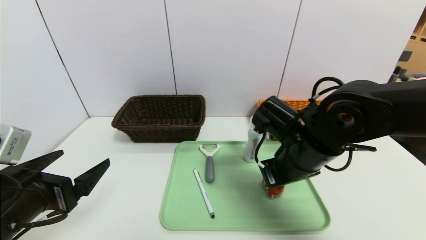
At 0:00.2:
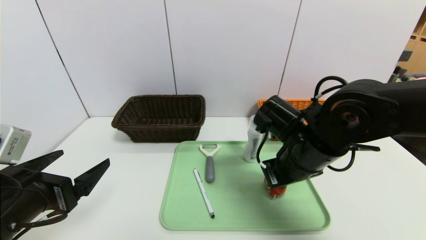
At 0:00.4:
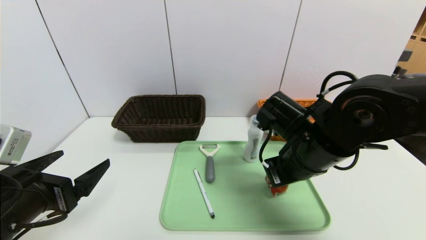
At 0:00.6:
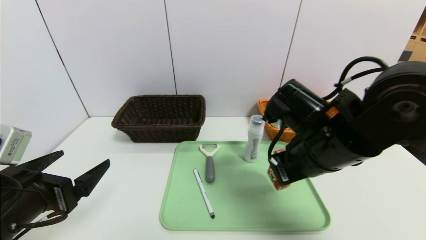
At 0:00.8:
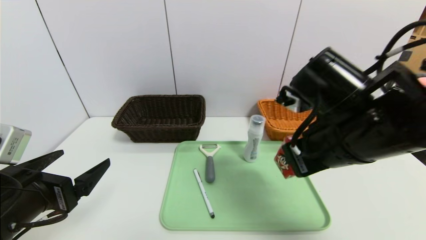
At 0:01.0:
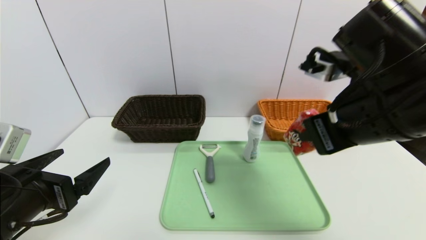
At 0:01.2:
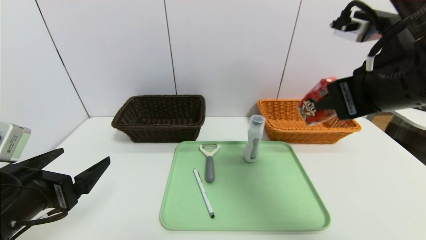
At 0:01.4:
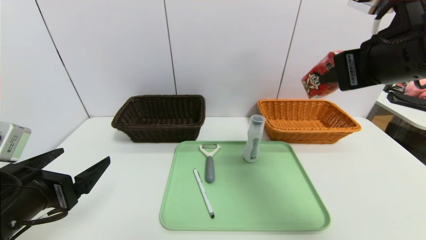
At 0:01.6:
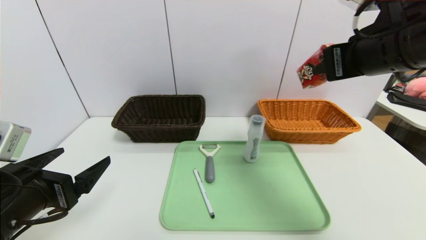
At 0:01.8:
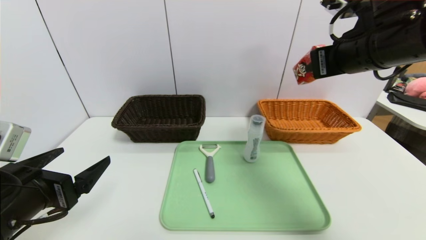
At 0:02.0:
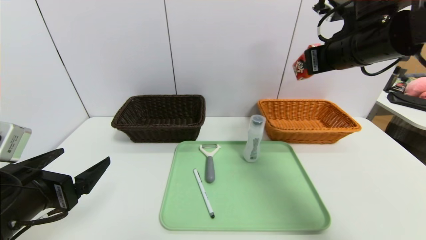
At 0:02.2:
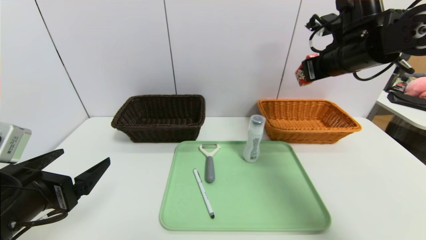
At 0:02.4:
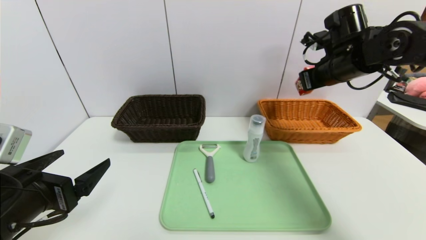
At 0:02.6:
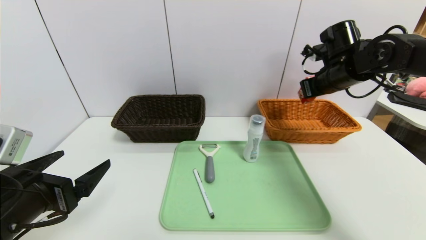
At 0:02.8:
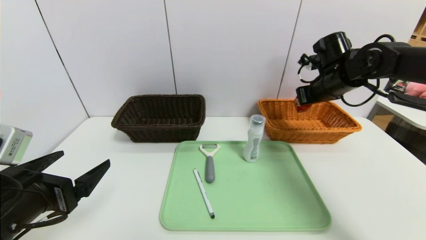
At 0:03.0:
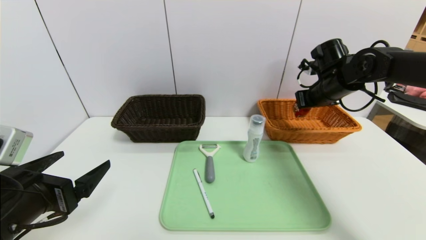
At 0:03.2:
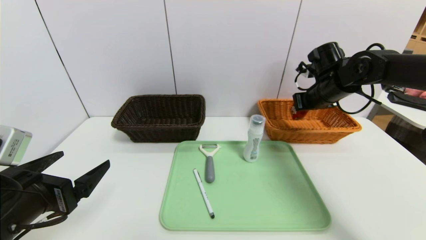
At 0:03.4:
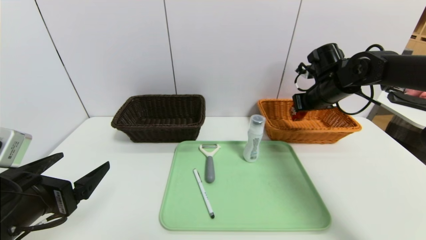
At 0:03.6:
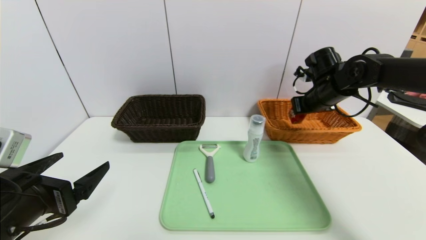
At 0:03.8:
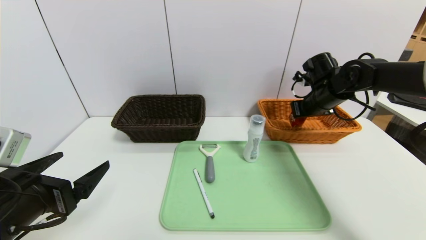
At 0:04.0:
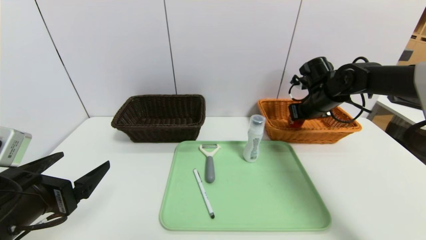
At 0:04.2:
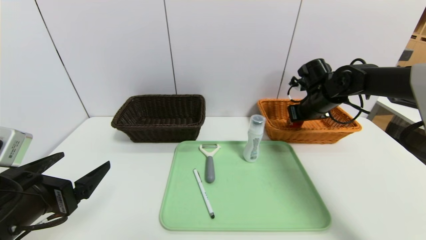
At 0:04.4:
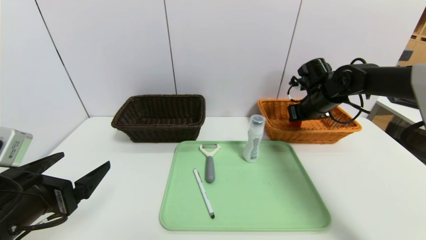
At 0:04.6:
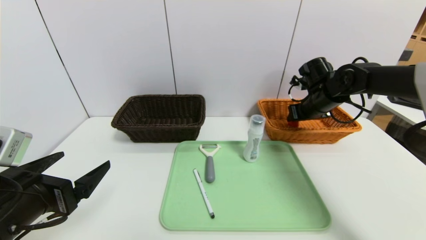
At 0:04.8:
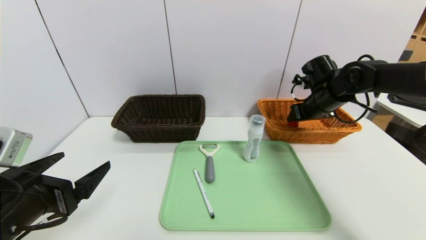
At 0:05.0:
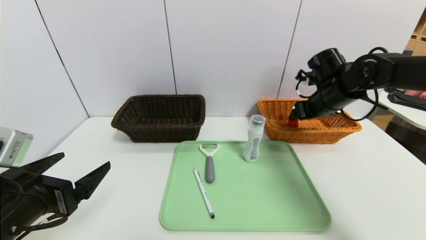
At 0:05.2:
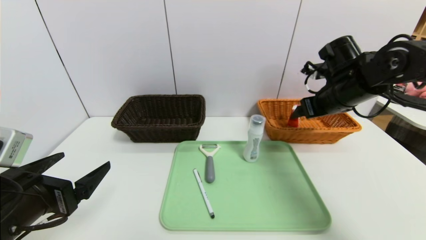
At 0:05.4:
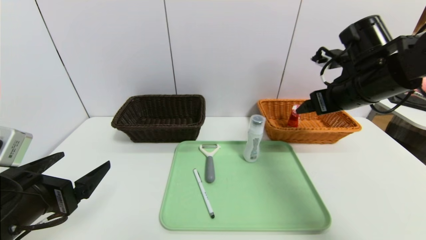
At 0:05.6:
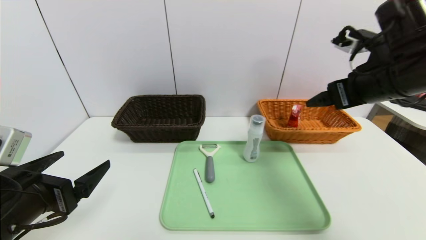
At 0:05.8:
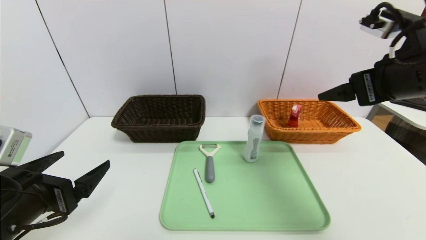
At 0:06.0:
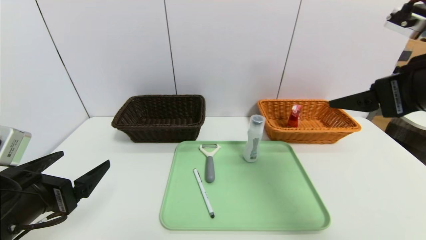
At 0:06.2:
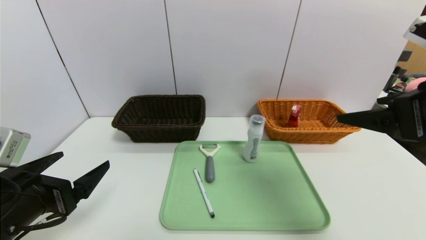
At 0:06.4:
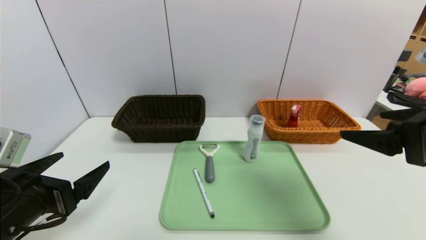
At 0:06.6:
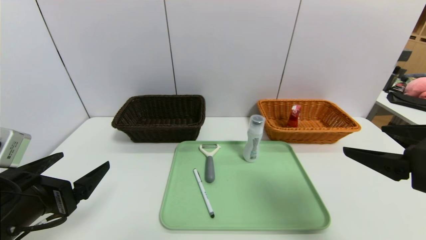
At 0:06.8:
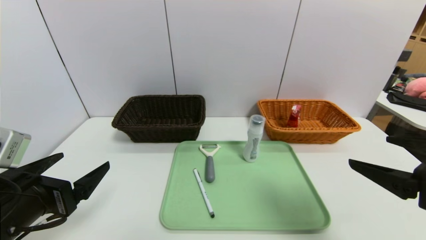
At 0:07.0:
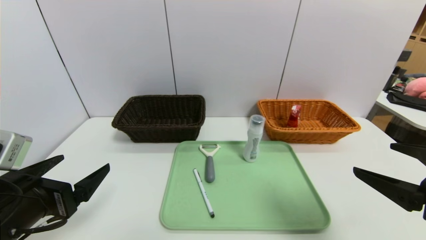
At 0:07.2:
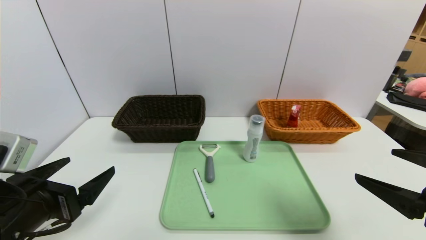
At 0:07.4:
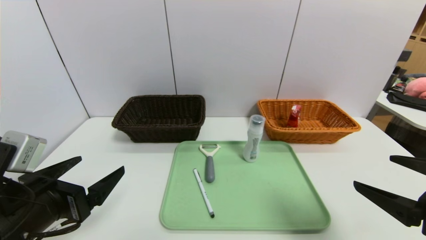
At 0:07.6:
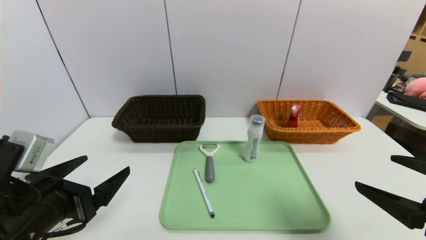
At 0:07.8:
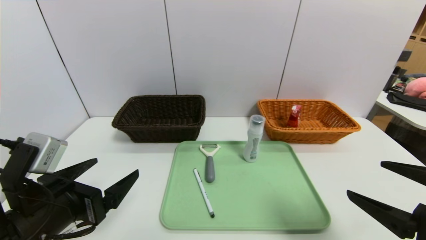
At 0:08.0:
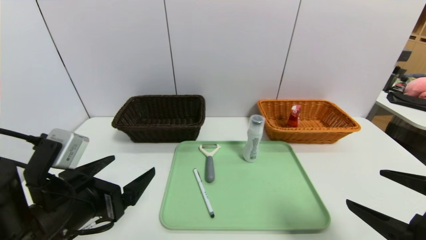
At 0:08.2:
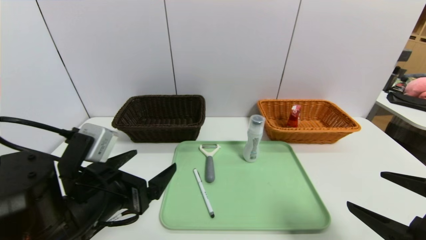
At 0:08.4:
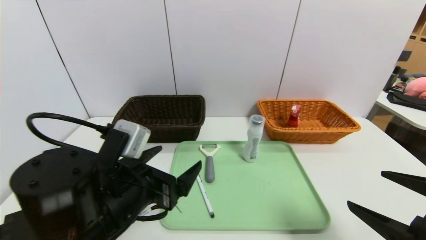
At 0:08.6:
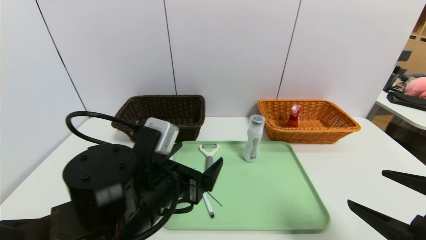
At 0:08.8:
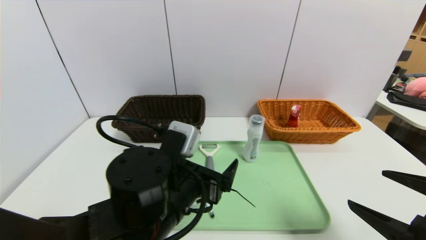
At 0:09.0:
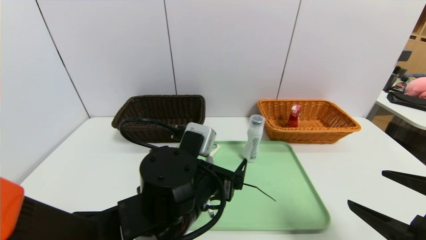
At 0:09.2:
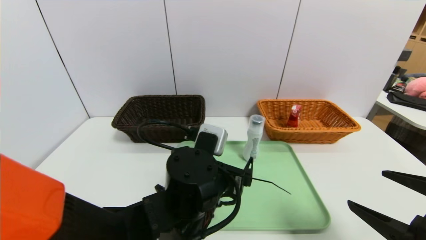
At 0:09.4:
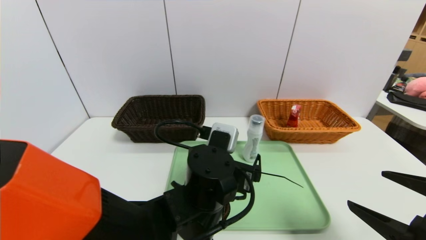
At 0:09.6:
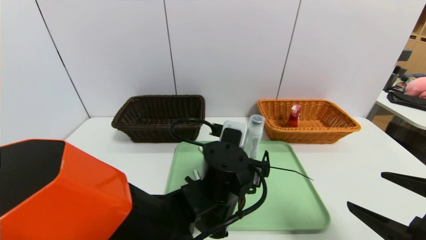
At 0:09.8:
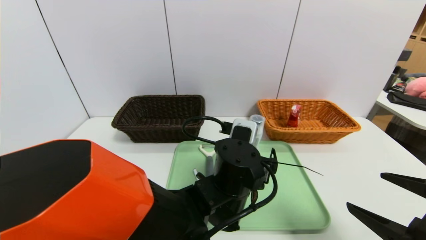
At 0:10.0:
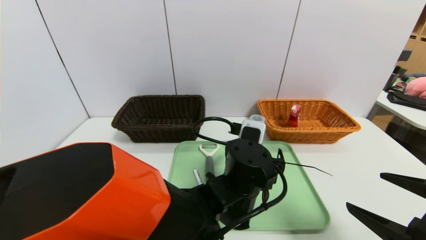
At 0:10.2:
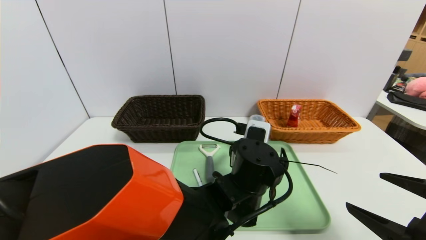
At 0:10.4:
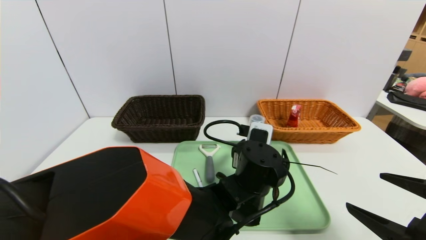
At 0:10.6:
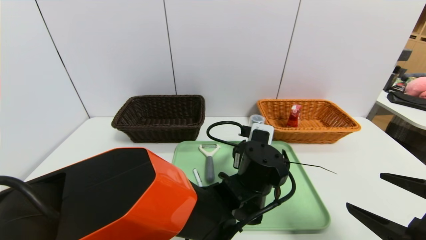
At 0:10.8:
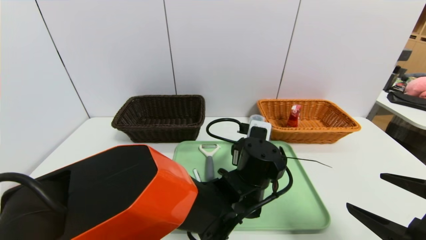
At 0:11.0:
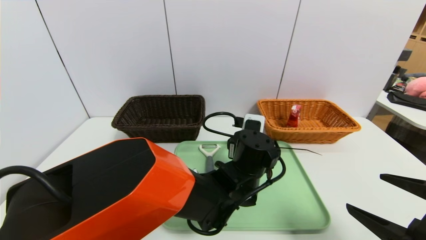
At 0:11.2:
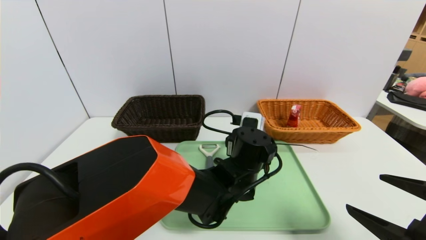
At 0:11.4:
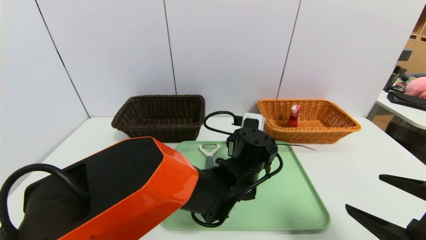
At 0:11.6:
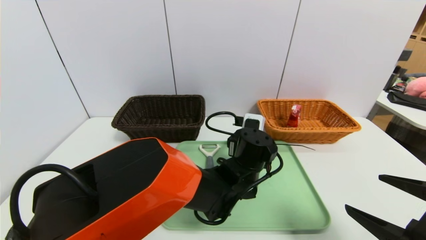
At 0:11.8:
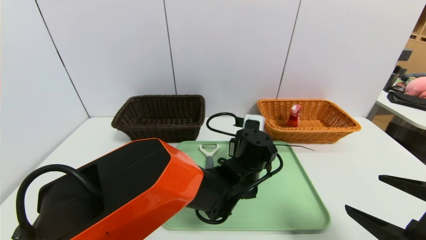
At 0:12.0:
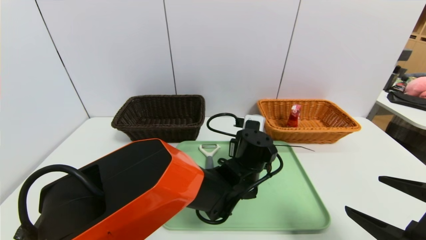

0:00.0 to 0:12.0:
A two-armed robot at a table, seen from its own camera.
Task of the whole recording: place the food in the right basket with the right gripper, and place the non food items in the left basket with the left gripper.
Step, 0:00.0 to 0:05.8: Grasp the ad milk and put it in the right basket.
0:00.0 to 0:01.6: The right gripper shifts about 20 cm upward and to the right.
0:01.6 to 0:03.0: The right gripper moves forward and downward, about 20 cm.
0:03.0 to 0:04.4: There are only small adjustments of the grippers.
0:04.4 to 0:06.0: The right gripper moves backward and upward, some 30 cm, and opens its fingers.
0:06.0 to 0:07.6: The right gripper moves downward and backward, approximately 15 cm.
0:07.6 to 0:09.0: The left gripper heads to the right, covering about 20 cm.
0:09.0 to 0:10.4: The left gripper is displaced to the right and forward by roughly 15 cm.
0:10.4 to 0:12.0: The left gripper is displaced forward by about 5 cm, and closes its fingers.

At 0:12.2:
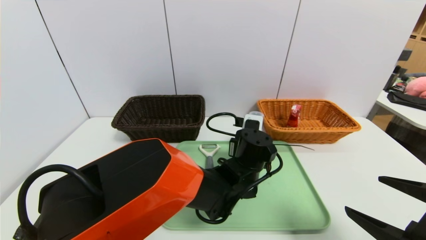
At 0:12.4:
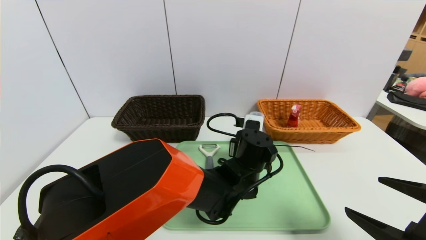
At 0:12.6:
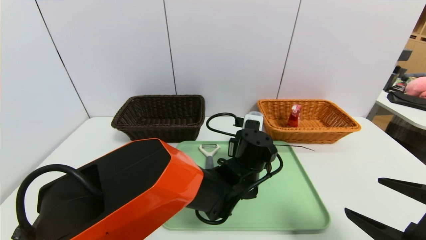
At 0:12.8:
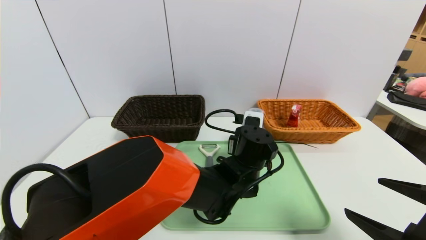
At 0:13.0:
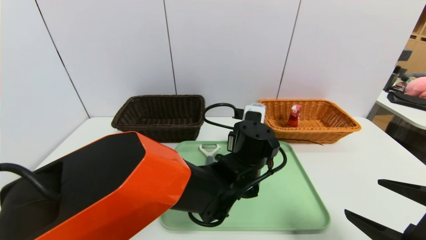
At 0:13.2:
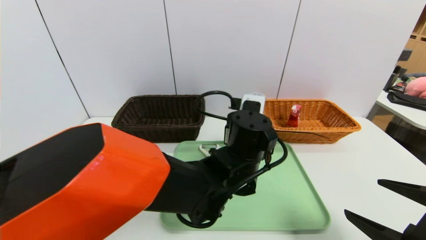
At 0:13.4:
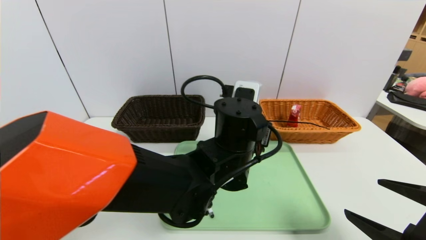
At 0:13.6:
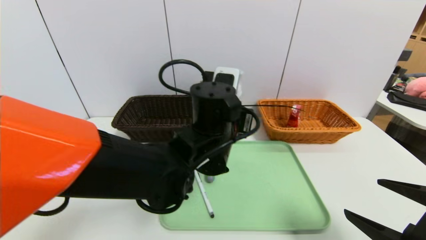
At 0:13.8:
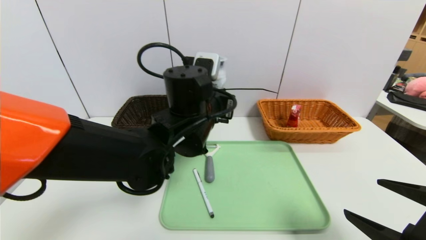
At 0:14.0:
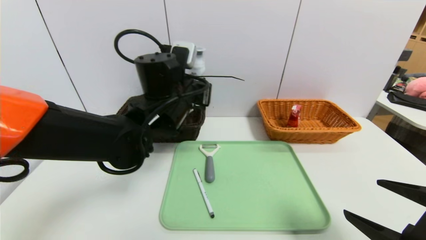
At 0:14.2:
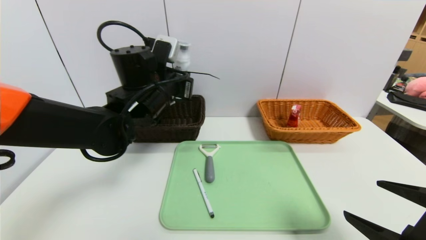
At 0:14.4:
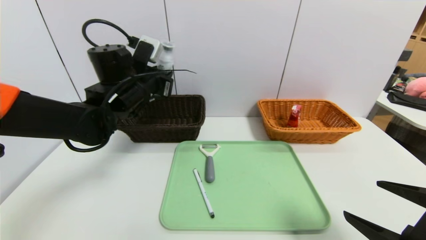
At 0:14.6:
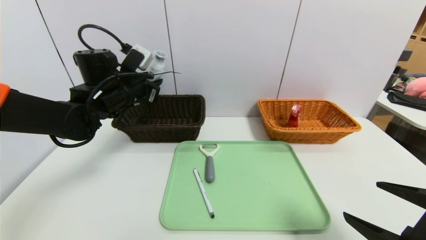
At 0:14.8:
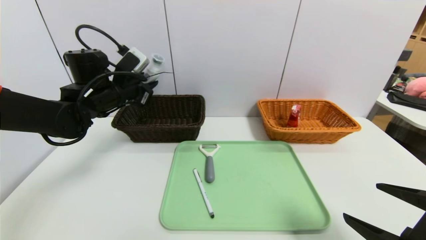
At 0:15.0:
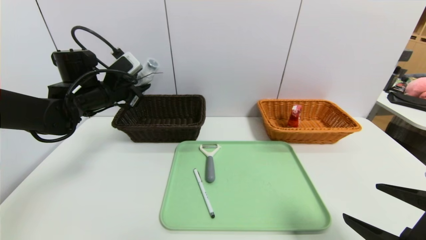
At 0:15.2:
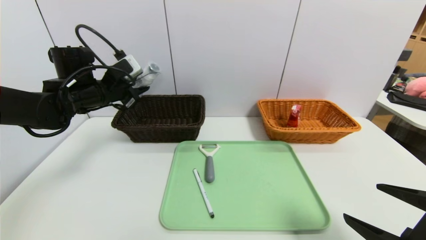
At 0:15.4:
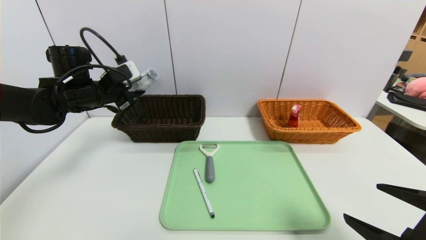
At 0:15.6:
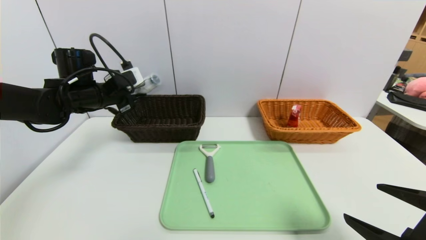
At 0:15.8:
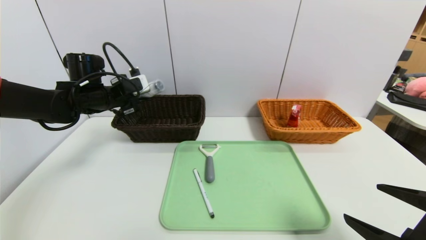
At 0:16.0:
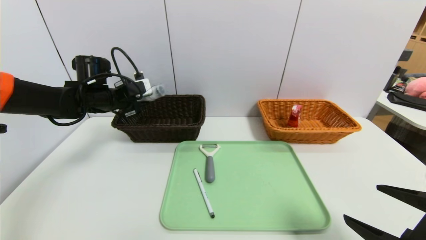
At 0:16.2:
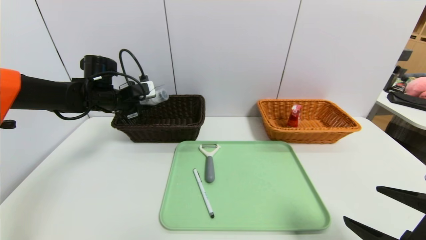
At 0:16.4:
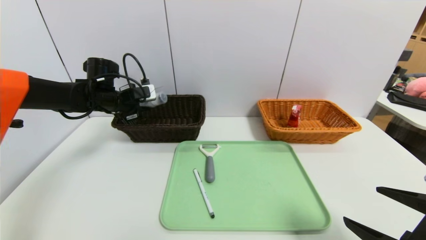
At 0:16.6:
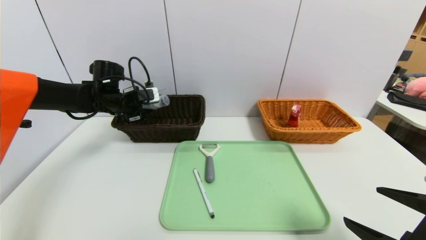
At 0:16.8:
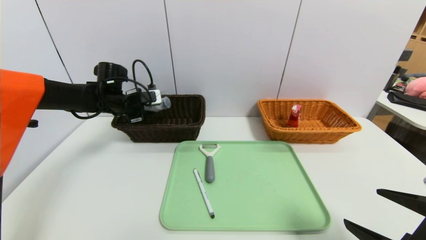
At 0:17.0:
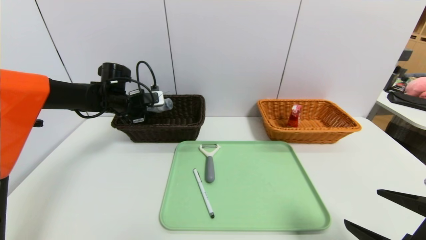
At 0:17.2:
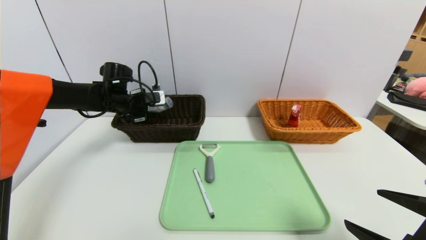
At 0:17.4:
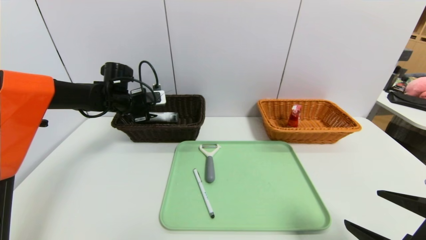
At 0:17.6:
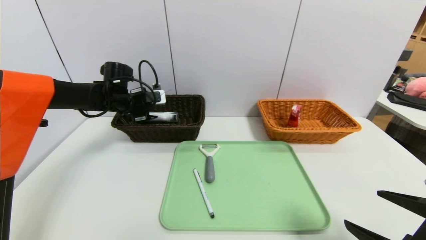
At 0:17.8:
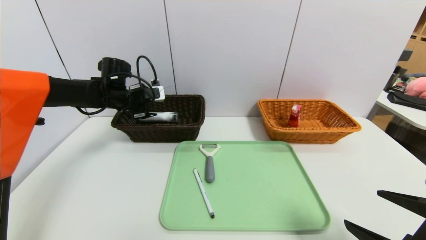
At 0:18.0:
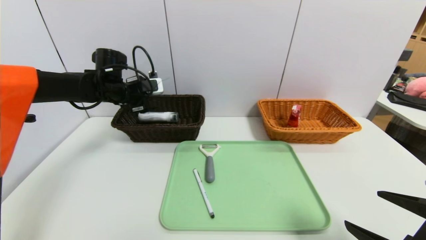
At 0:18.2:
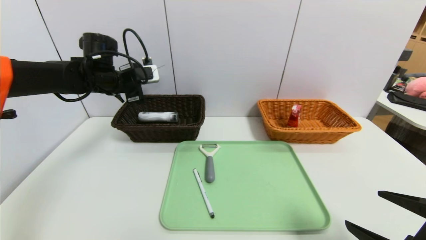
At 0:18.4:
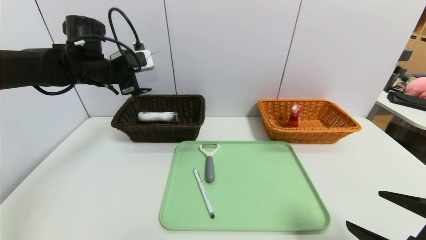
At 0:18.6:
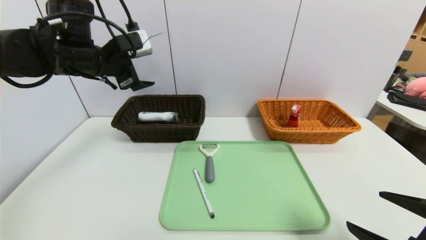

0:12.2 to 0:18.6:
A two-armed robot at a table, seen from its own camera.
Task of the whole recording: place the food in the right basket with the right gripper, and place the non food items in the left basket with the left gripper.
Step, 0:12.2 to 0:18.2: Grasp the cleaning agent and put it in the left basket.
0:12.2 to 0:13.8: The left gripper is displaced upward and to the left by approximately 15 cm.
0:13.8 to 0:15.4: The left gripper moves to the left, about 25 cm.
0:15.4 to 0:17.0: The left gripper shifts some 10 cm forward and downward.
0:17.0 to 0:18.6: The left gripper heads upward and backward, covering about 15 cm, and opens up.
